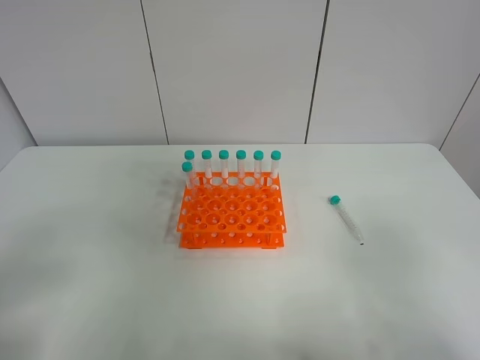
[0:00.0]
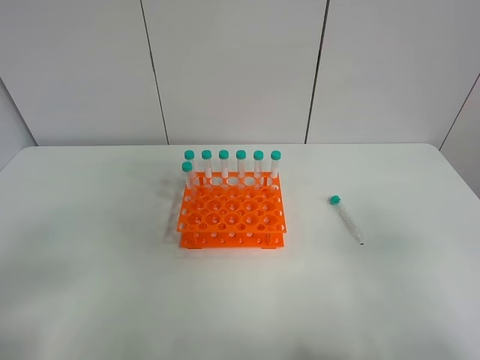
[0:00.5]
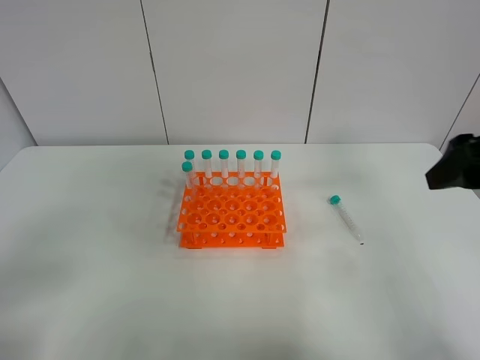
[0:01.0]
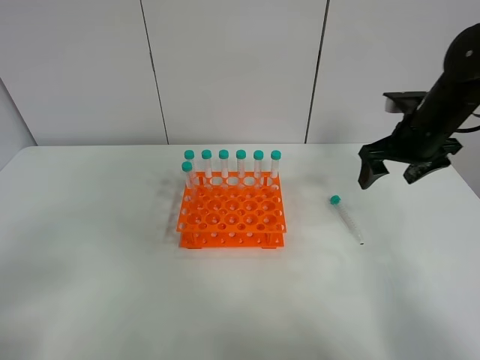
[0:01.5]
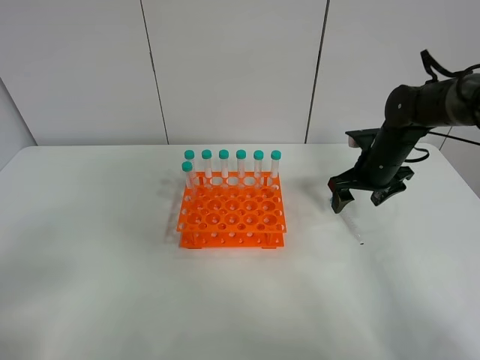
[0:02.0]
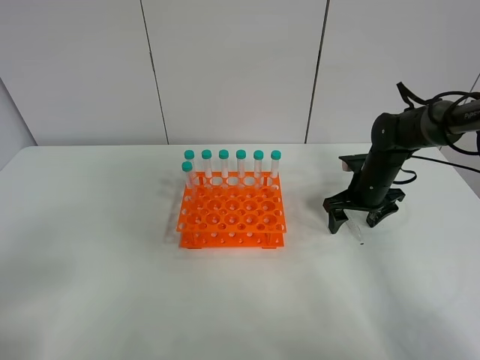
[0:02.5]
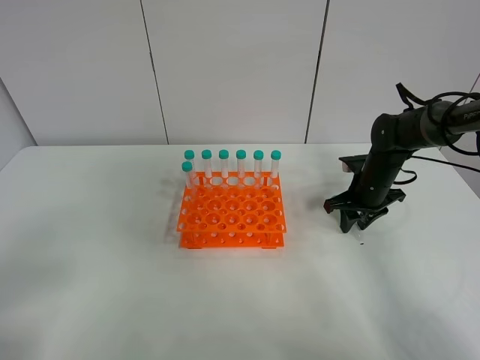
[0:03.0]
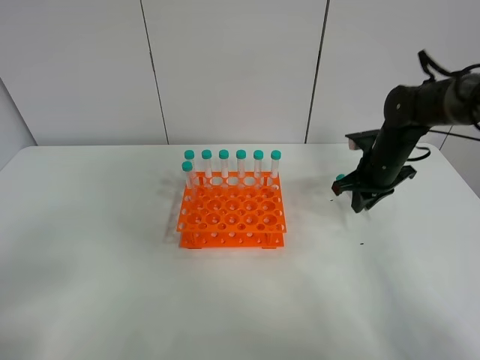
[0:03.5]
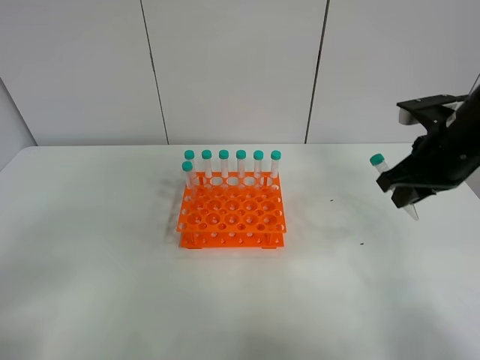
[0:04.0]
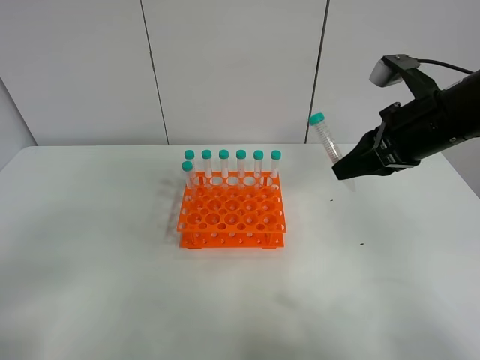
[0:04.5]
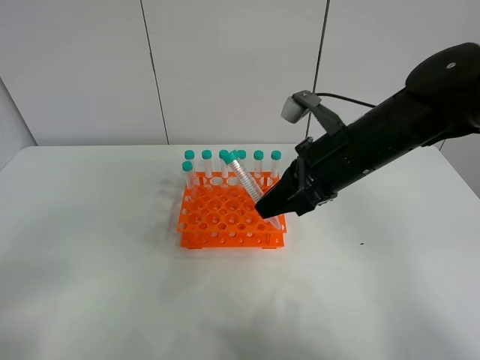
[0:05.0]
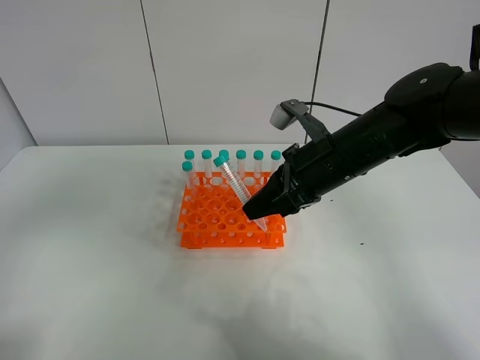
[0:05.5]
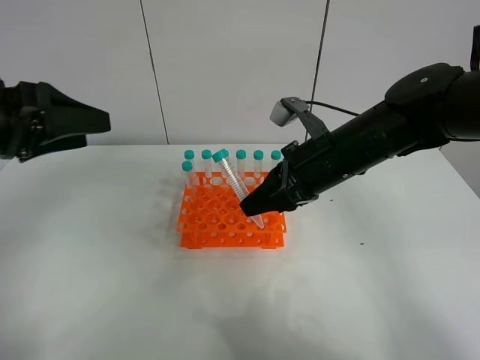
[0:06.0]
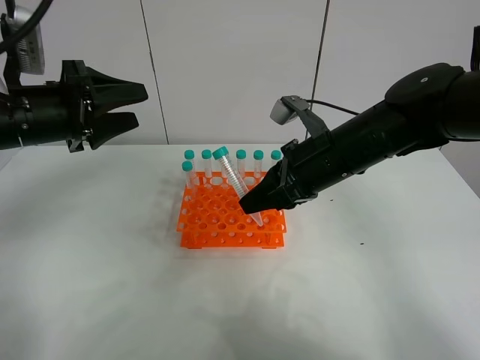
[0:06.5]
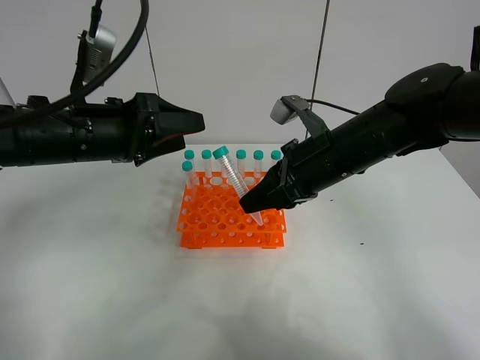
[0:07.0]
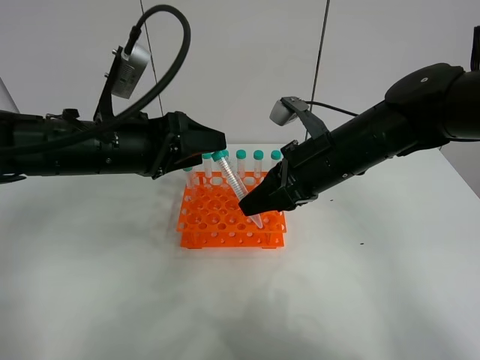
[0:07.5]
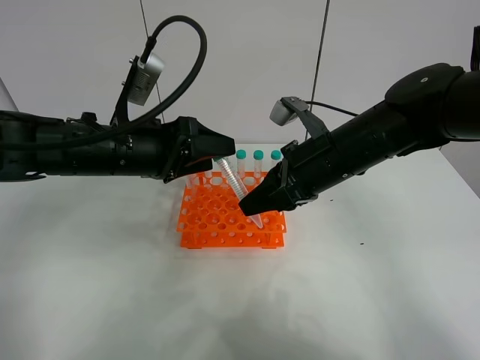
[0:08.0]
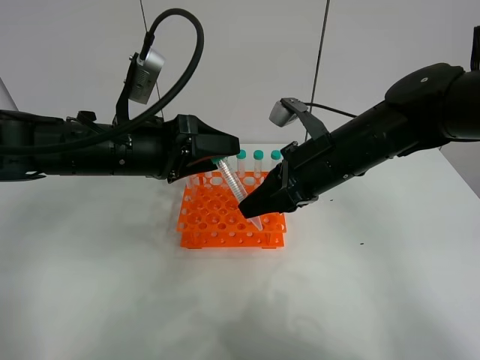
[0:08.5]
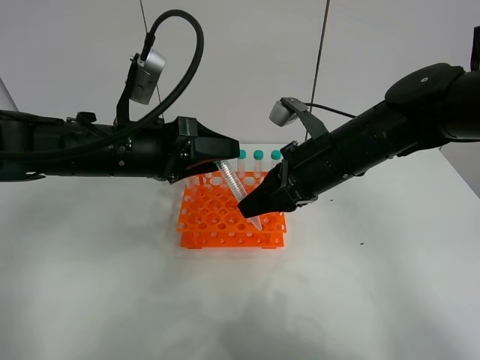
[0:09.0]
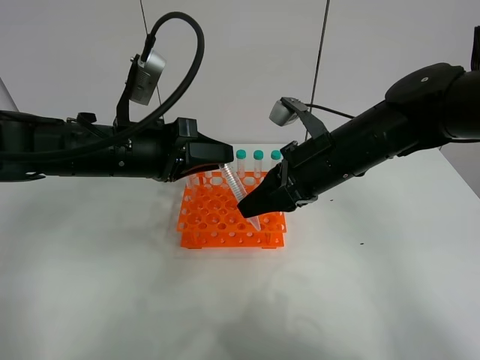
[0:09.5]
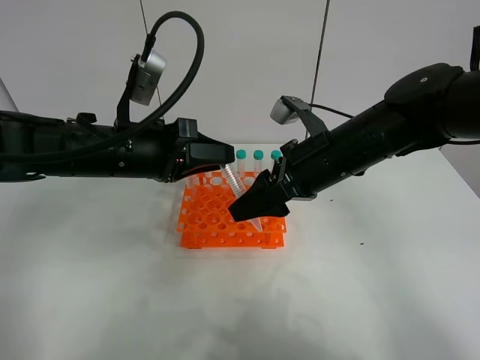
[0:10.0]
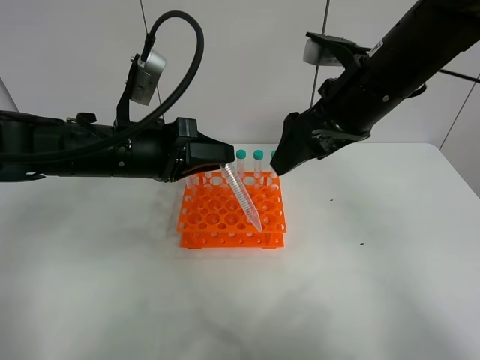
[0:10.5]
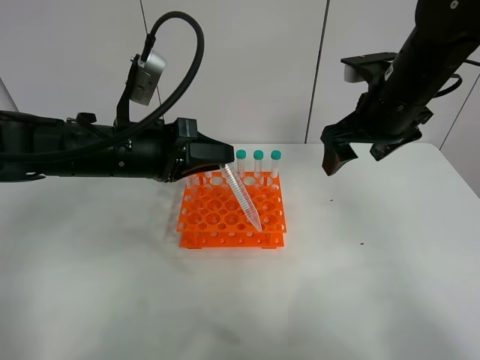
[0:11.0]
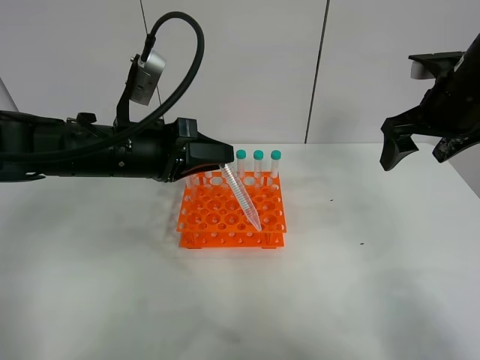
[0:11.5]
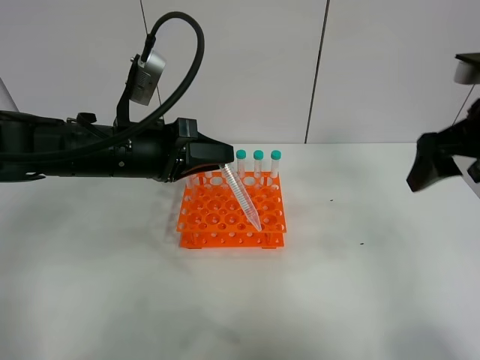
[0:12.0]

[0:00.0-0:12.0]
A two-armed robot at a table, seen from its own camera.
Task of the whole recording: Put the test tube on the table back onto the test tube rack.
Step, 0:00.0 to 0:03.0: Pick up the test tube with the right gripper.
Step, 0:03.5 to 0:10.0: Move the test tube from the right gripper to the left gripper.
0:00.0 to 0:02.0: The right gripper shifts approximately 40 cm forward.
0:02.0 to 0:04.0: The right gripper moves backward and upward, about 15 cm, and closes its fingers.
0:04.0 to 0:06.0: The left gripper travels forward by about 25 cm. Meanwhile the right gripper is displaced to the left by some 15 cm.
0:06.0 to 0:08.0: The left gripper travels to the right and downward by approximately 15 cm.
0:08.0 to 0:10.0: The right gripper opens up. Meanwhile the left gripper closes its fingers.
0:10.0 to 0:12.0: The right gripper shifts approximately 20 cm to the right and upward.

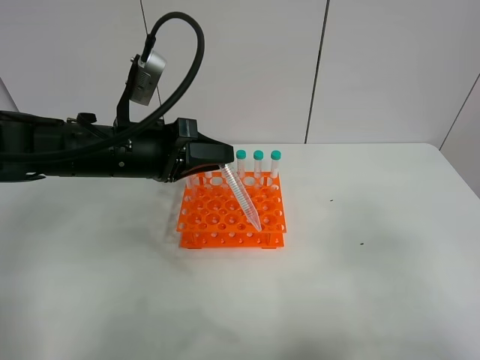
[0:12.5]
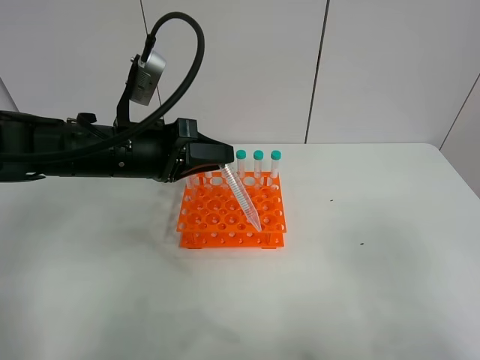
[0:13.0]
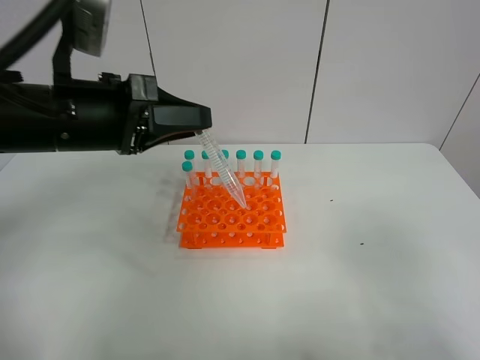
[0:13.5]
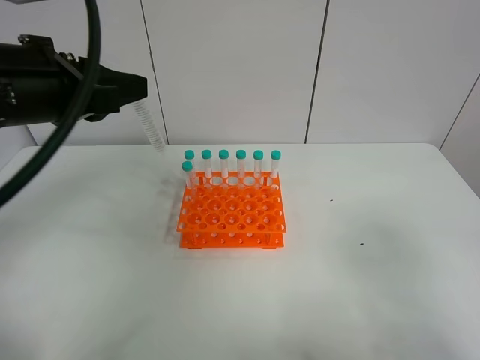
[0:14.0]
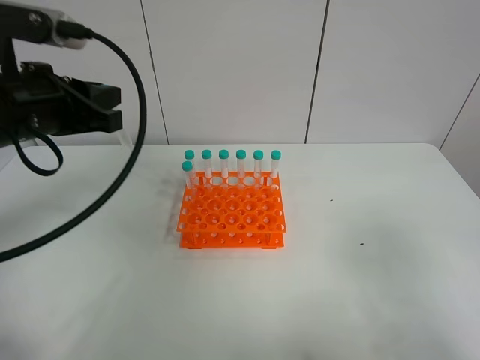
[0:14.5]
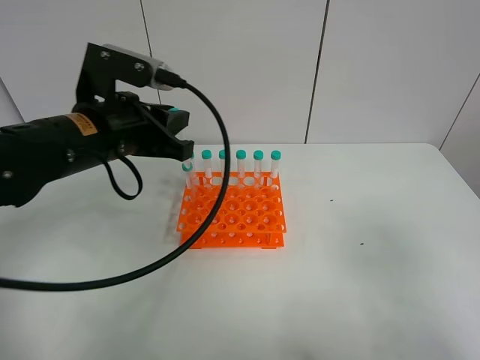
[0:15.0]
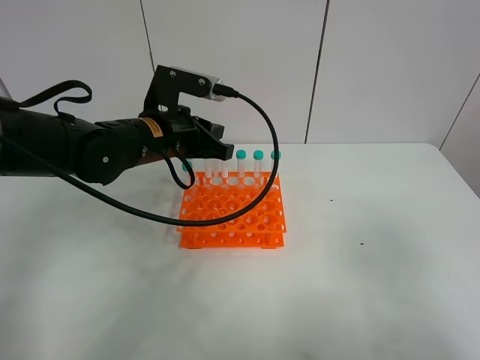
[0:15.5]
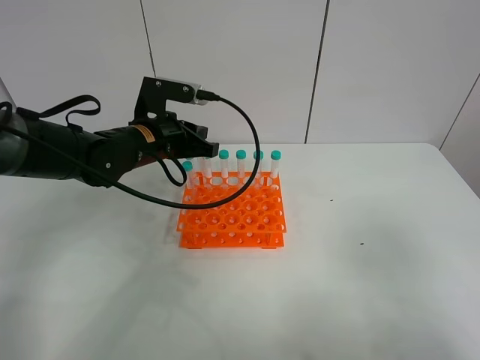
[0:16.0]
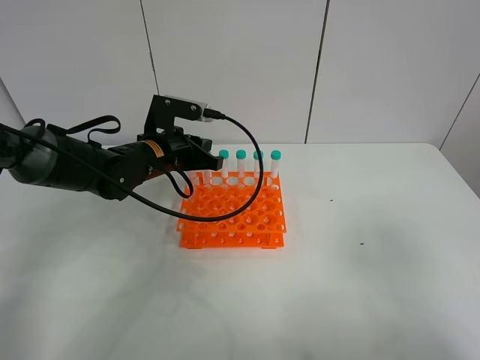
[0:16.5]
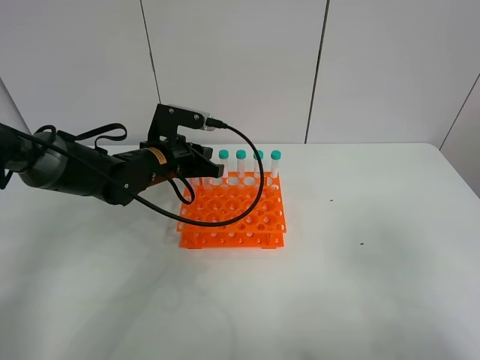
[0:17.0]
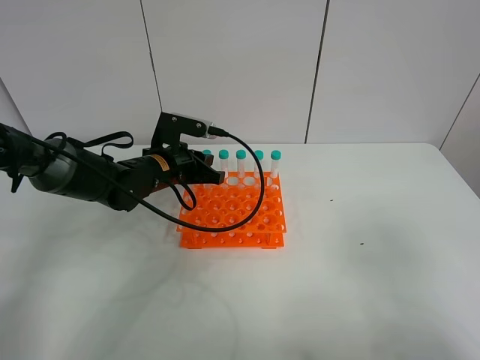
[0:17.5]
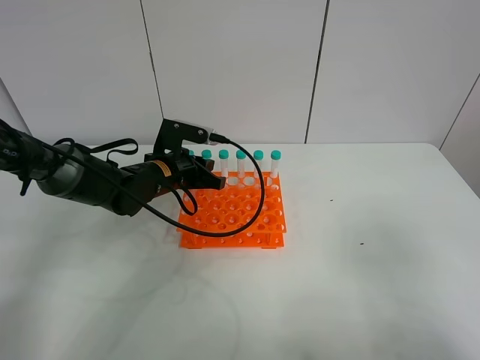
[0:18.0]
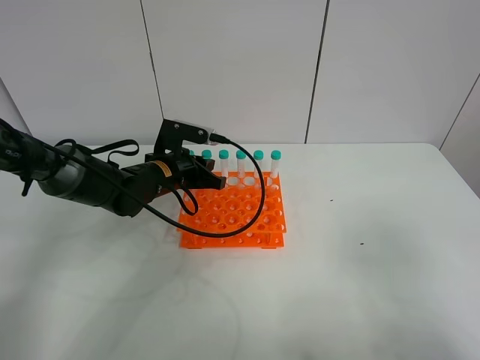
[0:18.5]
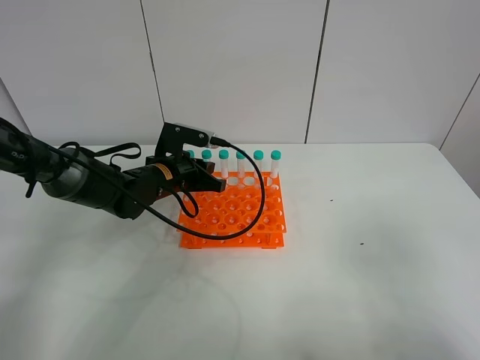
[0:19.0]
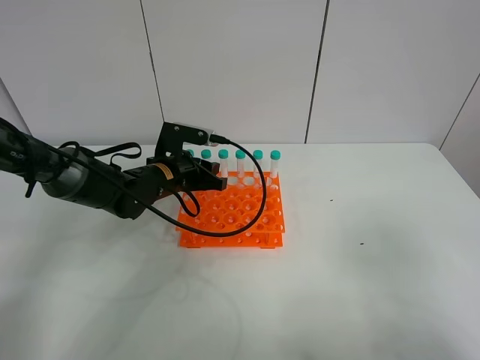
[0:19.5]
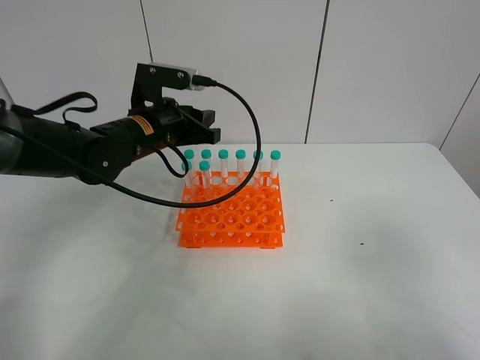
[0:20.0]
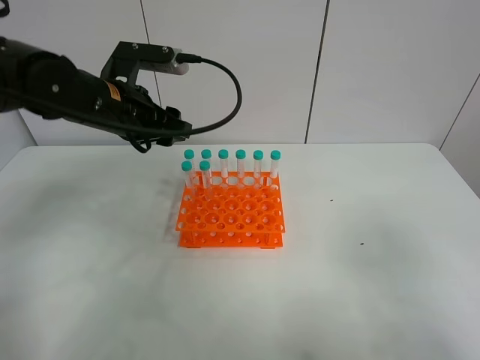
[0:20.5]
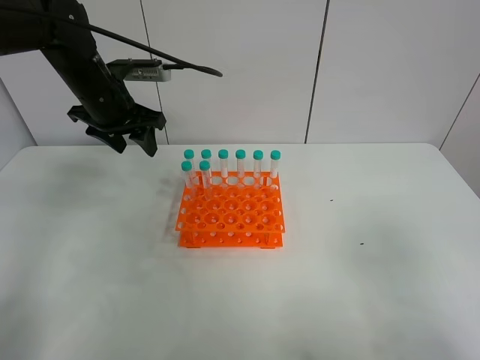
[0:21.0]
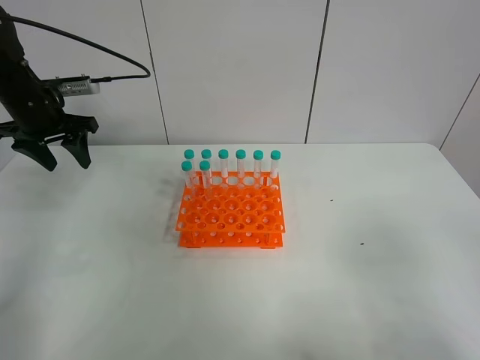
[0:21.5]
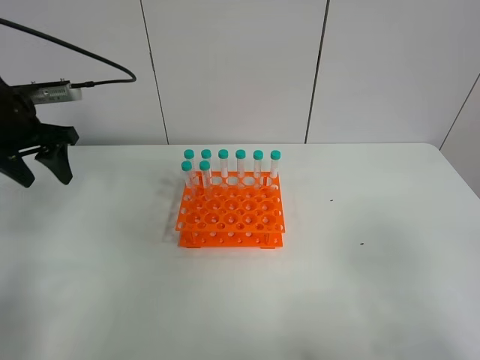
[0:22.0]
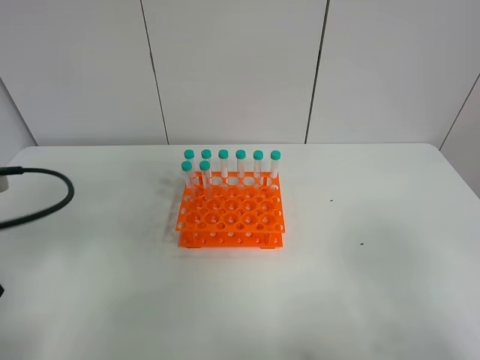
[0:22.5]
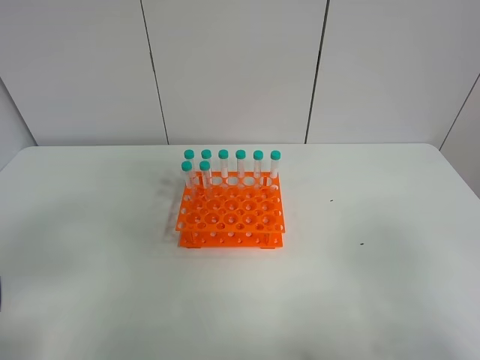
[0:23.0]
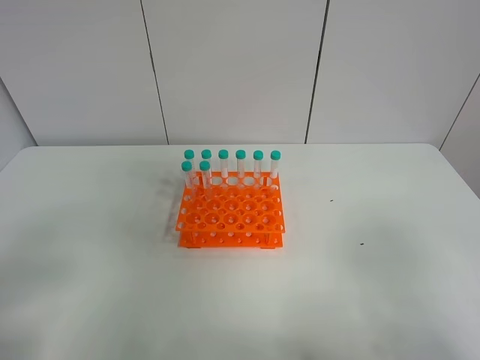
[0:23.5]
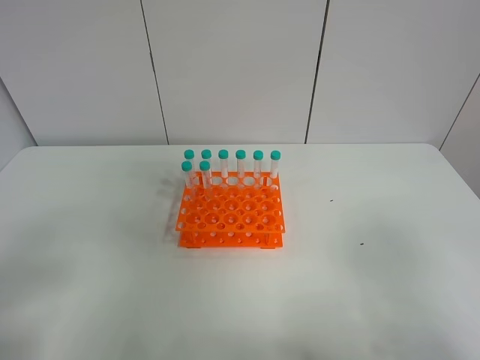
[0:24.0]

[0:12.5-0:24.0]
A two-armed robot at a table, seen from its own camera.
Task of the whole recording: Put the test tube on the table back onto the test tube rack.
Step, 0:12.5 to 0:19.0: Place the test tube on the test tube rack with the left gripper.
0:12.5 to 0:14.5: The left gripper travels upward and to the left by about 10 cm.
0:14.5 to 0:16.5: The left gripper moves downward, forward and to the right, about 20 cm.
0:16.5 to 0:18.5: The grippers make only small movements.
0:18.5 to 0:20.0: The left gripper goes roughly 10 cm upward, and opens up.
0:20.0 to 0:22.0: The left gripper is displaced to the left by approximately 20 cm, and opens up.
0:22.0 to 0:24.0: The left gripper goes about 35 cm backward.
